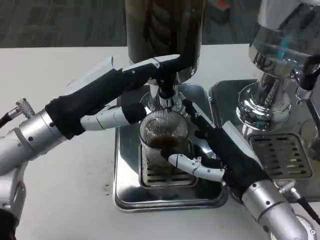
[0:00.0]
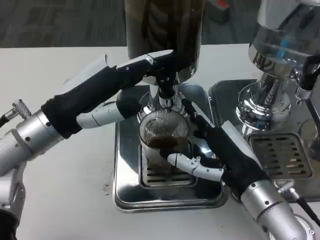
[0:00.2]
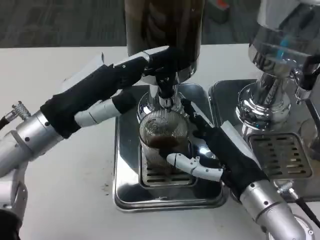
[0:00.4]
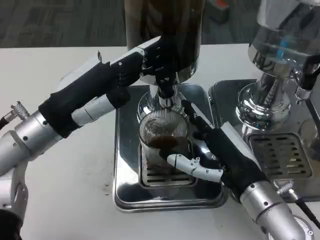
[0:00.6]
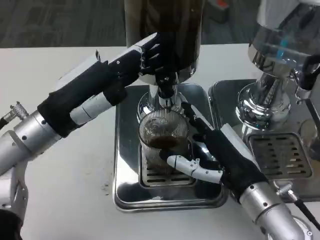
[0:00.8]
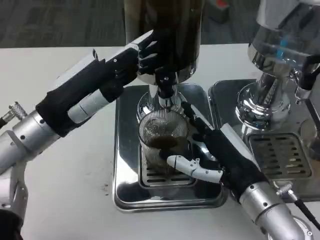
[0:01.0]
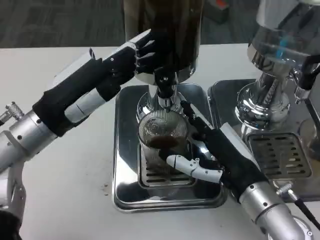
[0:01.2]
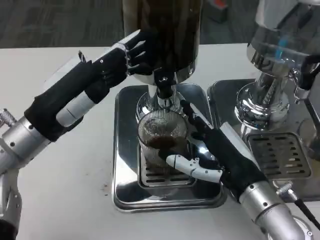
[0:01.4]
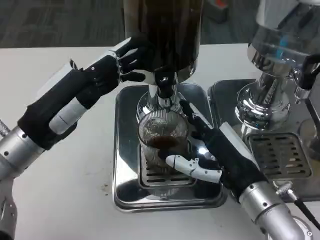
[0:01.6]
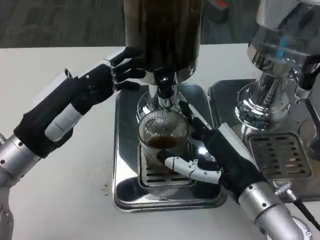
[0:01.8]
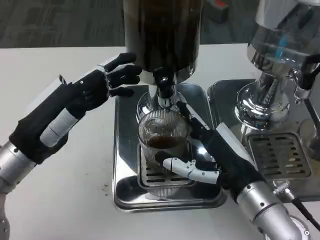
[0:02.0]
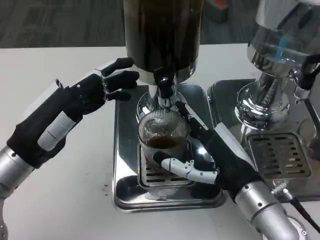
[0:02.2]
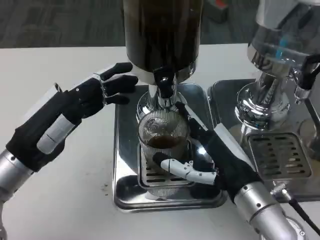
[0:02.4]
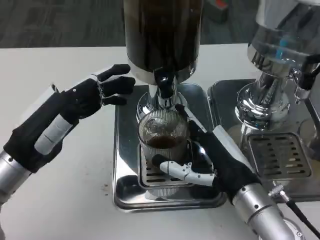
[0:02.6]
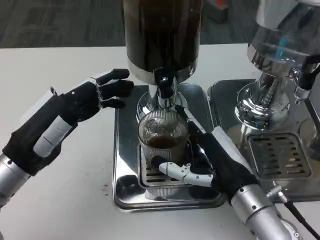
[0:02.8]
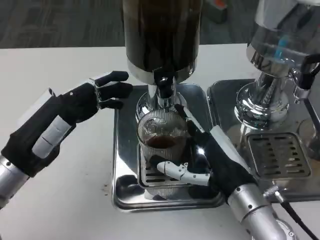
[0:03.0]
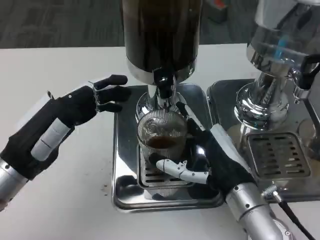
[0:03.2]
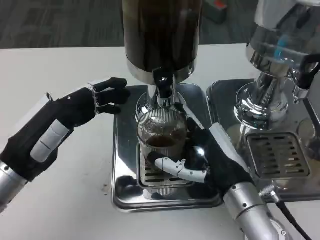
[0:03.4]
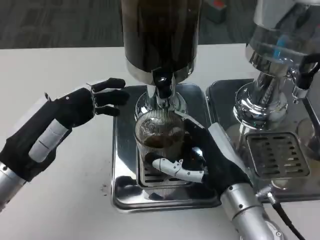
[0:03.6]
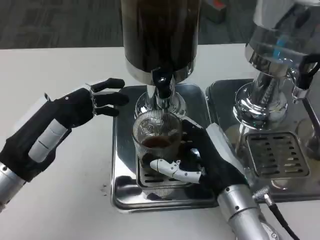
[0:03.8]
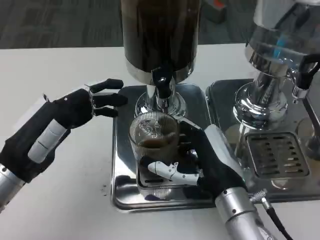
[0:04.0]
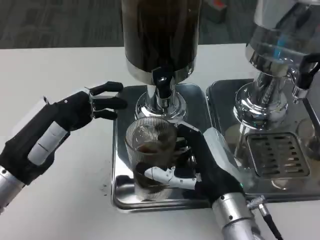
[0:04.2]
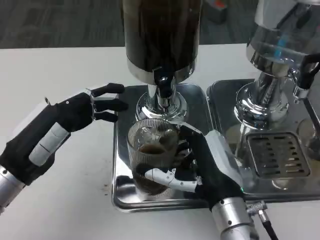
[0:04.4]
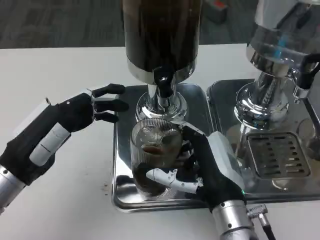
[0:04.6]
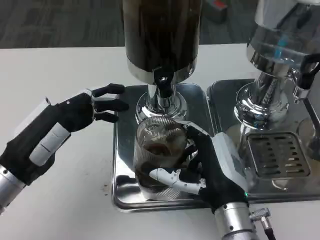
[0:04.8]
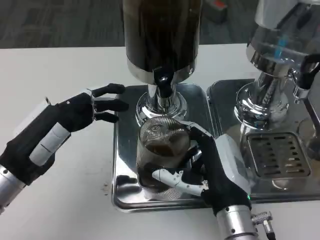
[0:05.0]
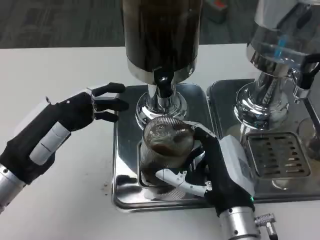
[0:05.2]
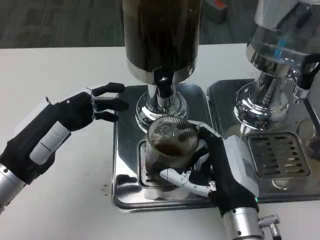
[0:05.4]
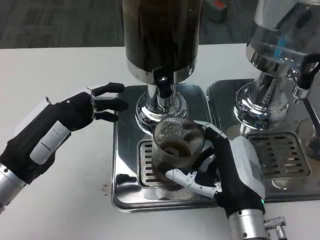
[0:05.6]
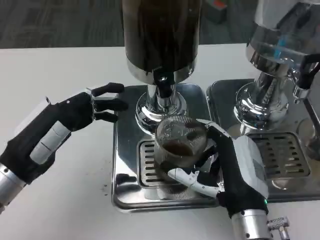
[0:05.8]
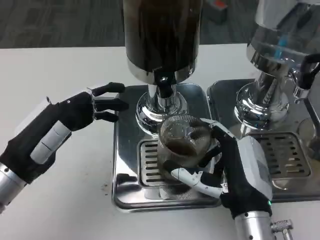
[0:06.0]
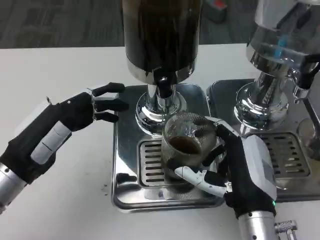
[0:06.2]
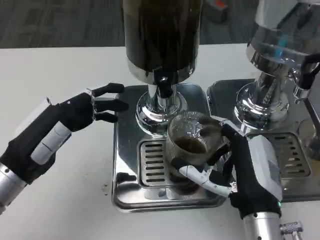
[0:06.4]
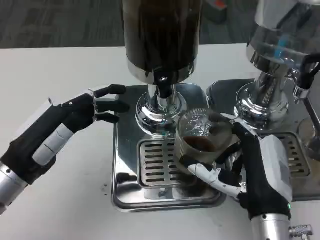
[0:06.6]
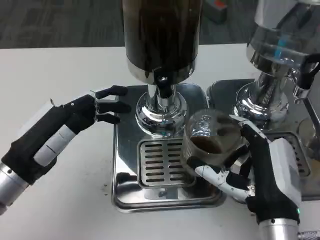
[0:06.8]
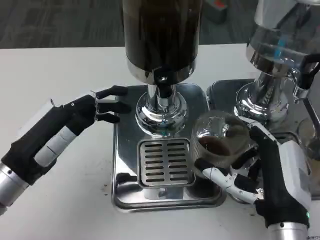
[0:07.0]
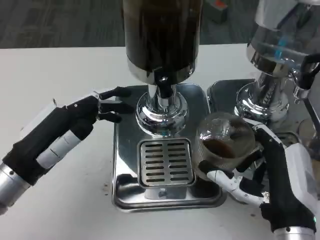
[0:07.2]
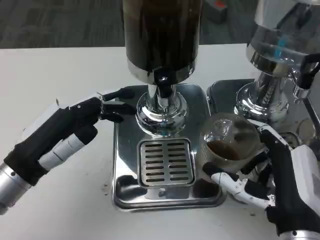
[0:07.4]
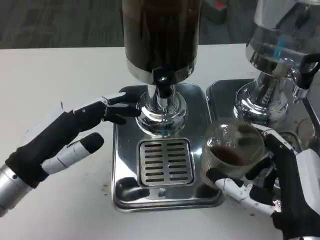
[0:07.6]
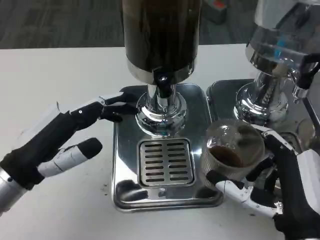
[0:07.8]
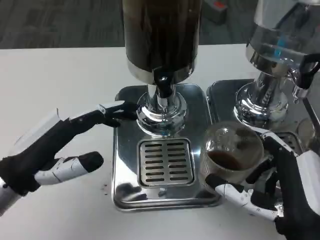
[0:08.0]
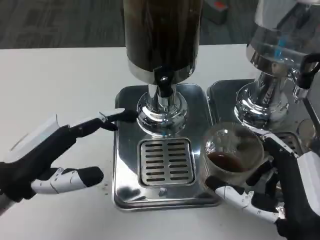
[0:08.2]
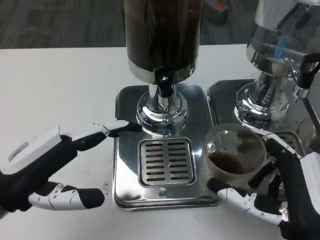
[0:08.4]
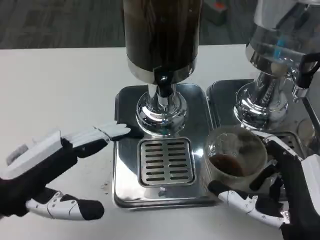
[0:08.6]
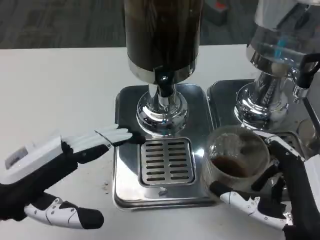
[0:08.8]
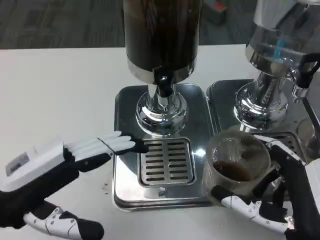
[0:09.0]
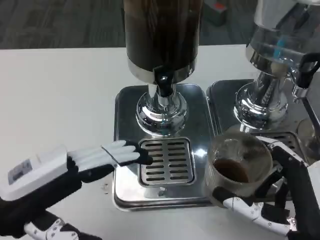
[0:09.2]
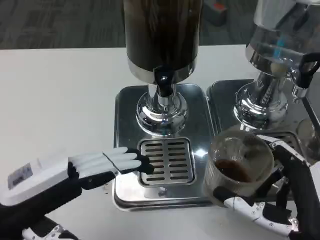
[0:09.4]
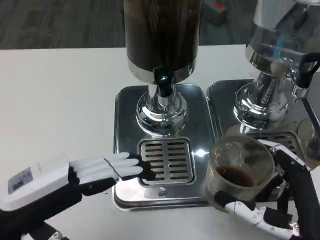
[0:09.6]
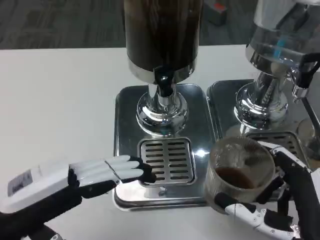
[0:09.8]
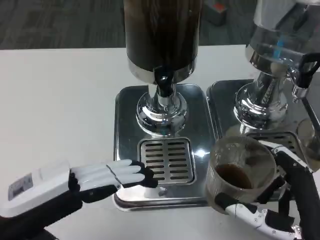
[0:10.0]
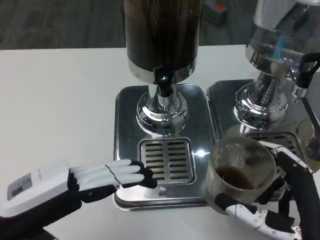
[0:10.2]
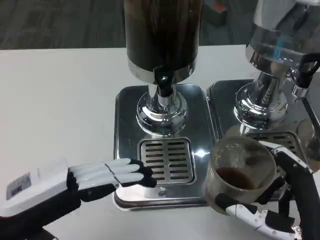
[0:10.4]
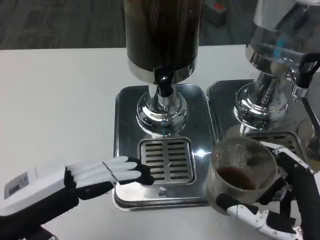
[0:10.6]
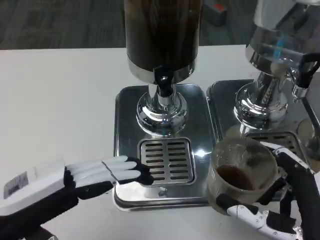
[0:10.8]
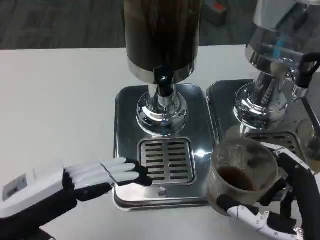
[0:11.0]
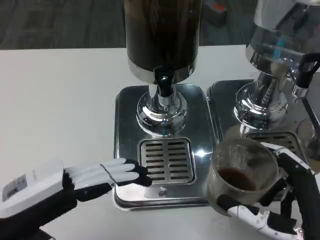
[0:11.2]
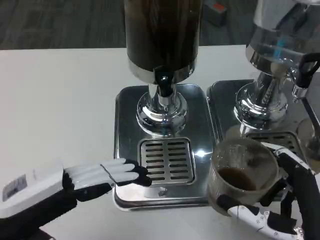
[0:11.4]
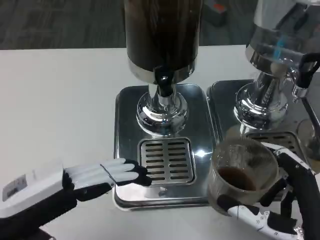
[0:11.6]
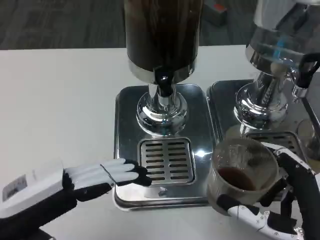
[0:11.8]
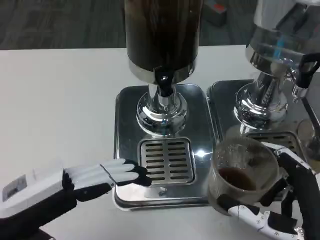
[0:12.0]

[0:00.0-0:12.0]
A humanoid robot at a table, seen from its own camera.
Task of the whole recording: Grasp the cup under the faucet to collect the drink, then remove the cup.
0:03.0 to 0:04.4: The hands move only a little.
0:04.4 to 0:06.0: The hands stay close to where they were, moving slightly.
0:06.0 to 0:07.6: The right hand ends up approximately 5 cm from where it was.
0:07.6 to 0:09.0: The left hand changes place by some 5 cm.
0:09.0 to 0:10.4: The hands move only a little.
0:10.4 to 0:12.0: The two hands keep their place.

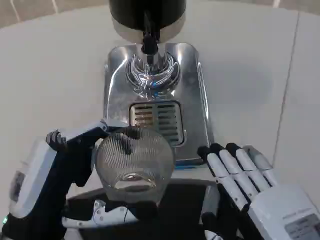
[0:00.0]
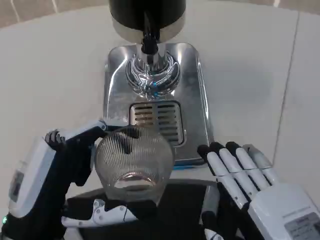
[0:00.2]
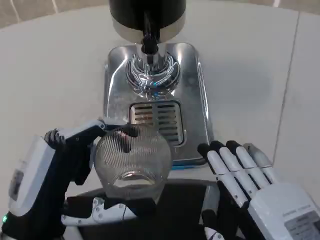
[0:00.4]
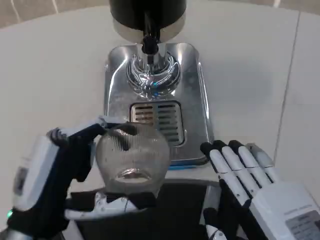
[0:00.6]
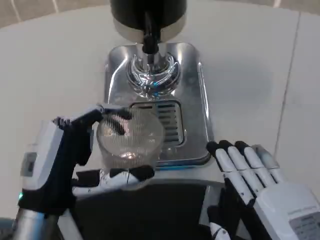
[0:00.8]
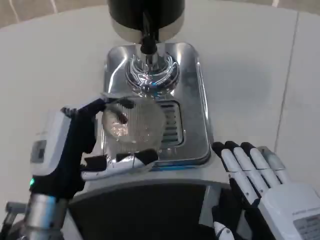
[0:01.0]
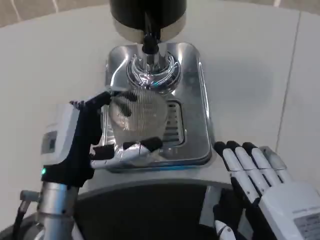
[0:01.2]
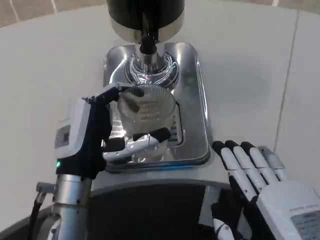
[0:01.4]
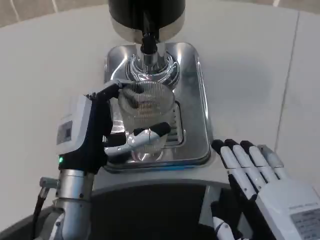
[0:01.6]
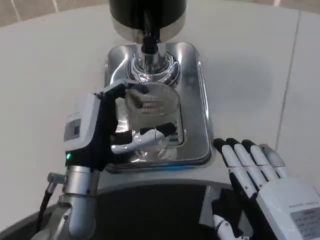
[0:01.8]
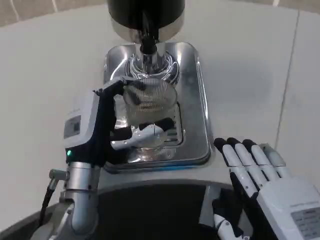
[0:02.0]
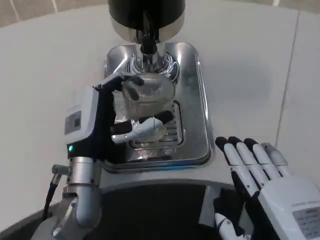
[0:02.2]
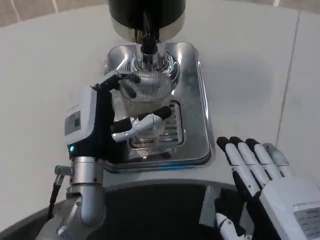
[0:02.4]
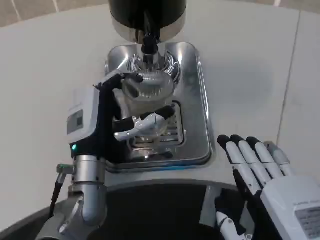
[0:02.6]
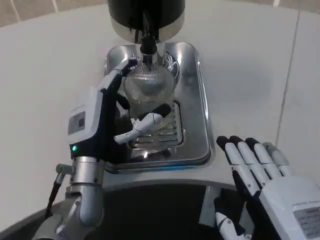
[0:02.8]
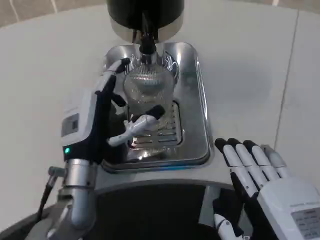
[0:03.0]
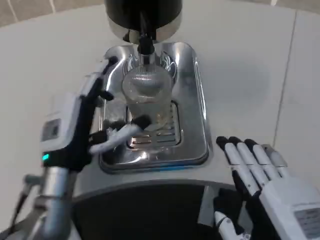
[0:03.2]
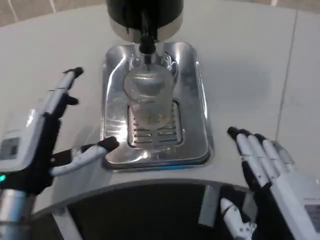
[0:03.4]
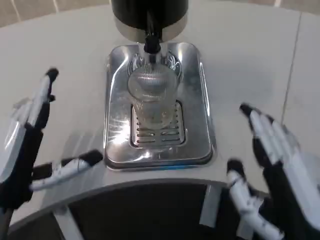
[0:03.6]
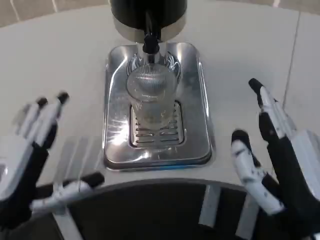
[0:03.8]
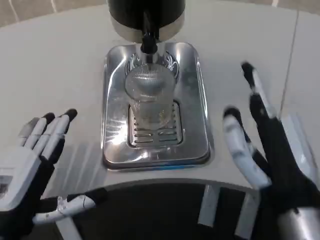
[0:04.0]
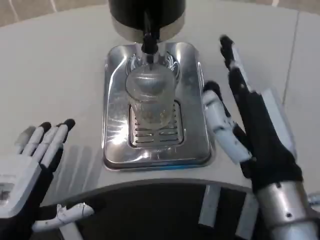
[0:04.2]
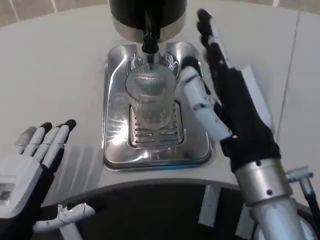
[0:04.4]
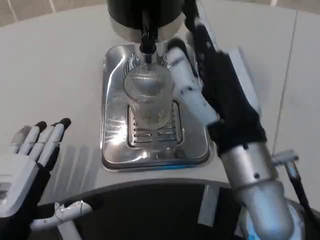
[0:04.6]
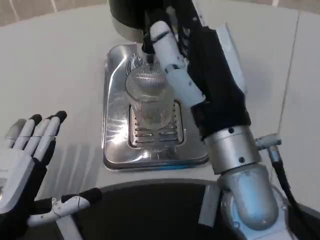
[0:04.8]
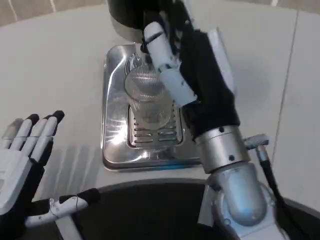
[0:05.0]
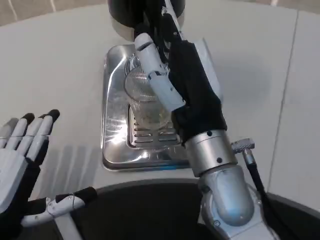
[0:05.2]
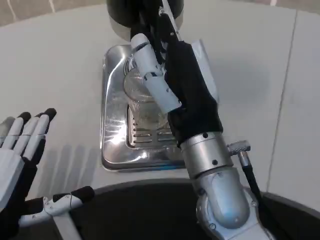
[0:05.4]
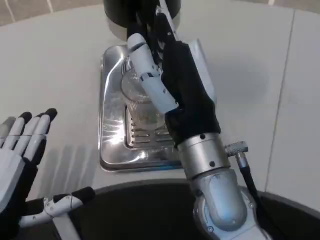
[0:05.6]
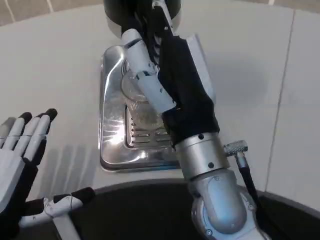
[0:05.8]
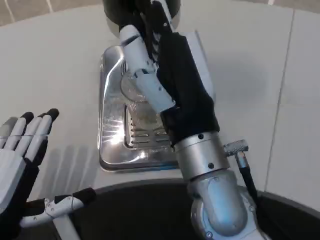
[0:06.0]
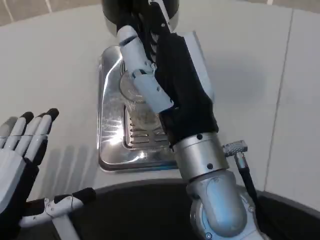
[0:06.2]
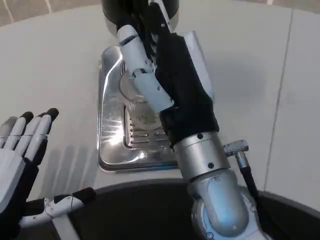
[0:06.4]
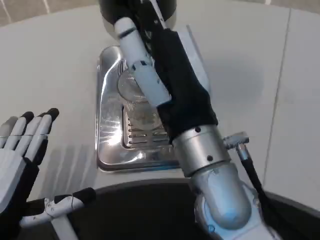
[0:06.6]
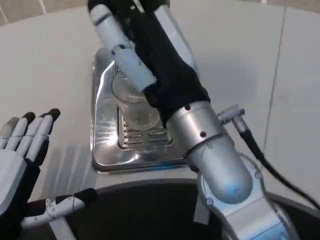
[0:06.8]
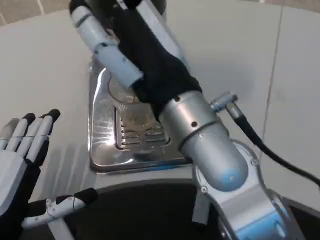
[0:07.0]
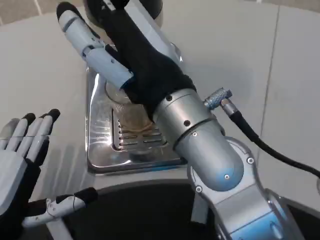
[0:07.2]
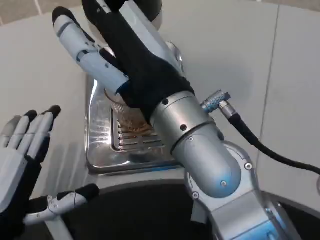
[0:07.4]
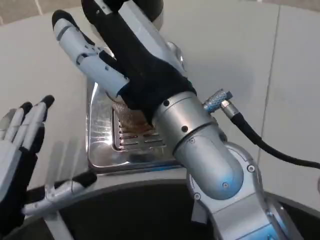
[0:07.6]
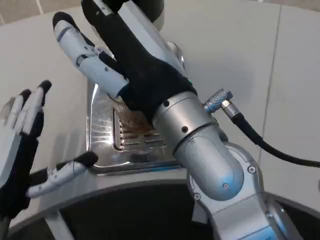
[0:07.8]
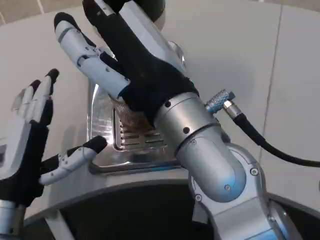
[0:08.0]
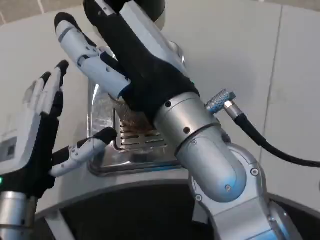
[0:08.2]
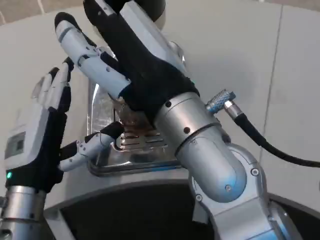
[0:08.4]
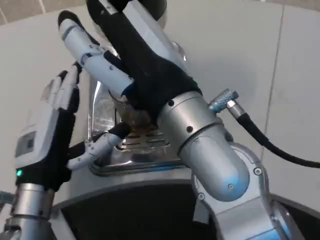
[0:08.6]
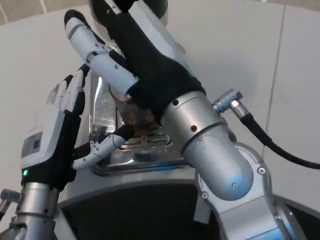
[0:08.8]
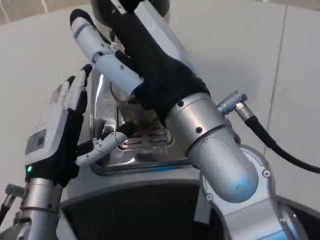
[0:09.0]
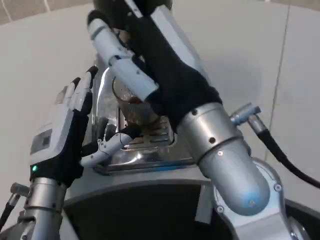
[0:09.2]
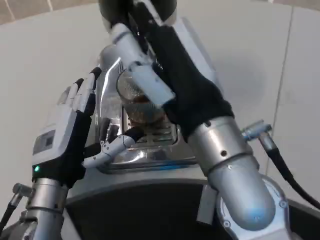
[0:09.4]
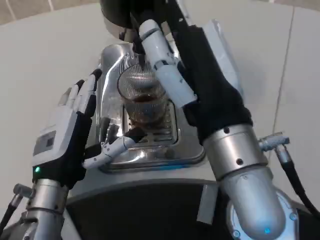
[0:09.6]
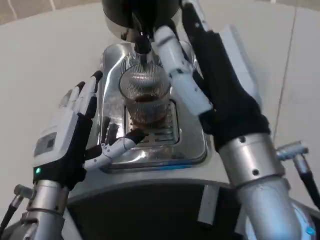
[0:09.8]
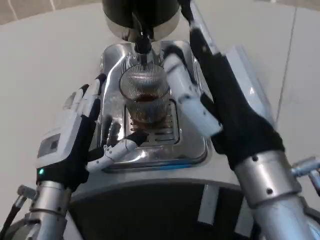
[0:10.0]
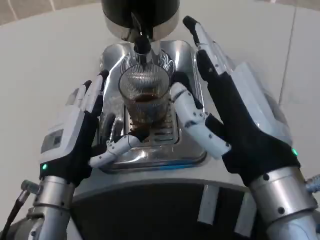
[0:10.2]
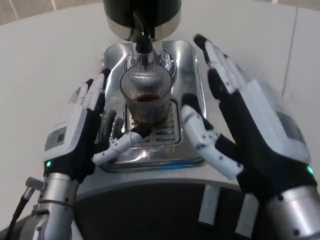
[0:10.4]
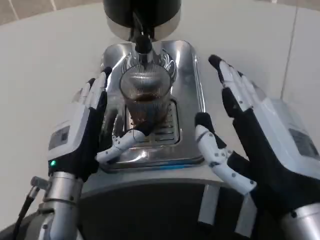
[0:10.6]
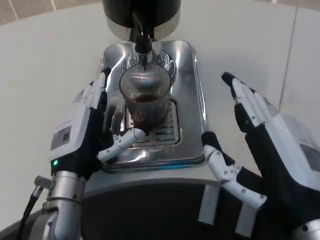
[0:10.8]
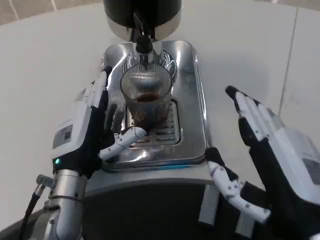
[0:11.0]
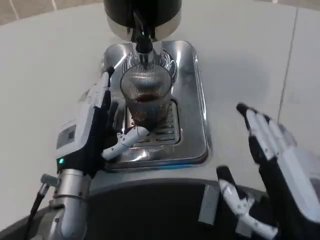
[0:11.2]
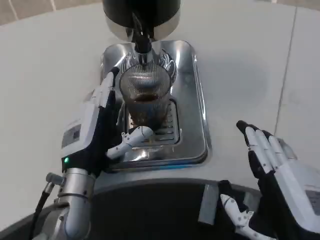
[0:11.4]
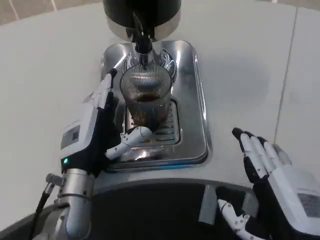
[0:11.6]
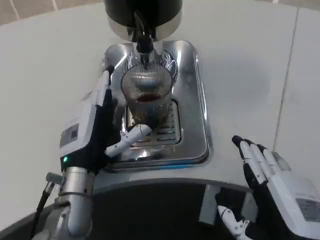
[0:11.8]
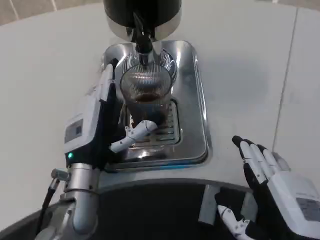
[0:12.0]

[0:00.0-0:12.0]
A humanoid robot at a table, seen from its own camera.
Task of the whole recording: Grasp the cup under the faucet to collect the drink, then remove the cup.
0:00.0 to 0:01.6: The left hand heads forward, covering approximately 10 cm.
0:01.6 to 0:03.0: The hands move only a little.
0:03.0 to 0:04.4: The right hand shifts about 15 cm forward, to the left and upward, while the left hand travels backward and to the left by approximately 15 cm.
0:04.4 to 0:06.0: The right hand heads to the left, covering approximately 5 cm.
0:06.0 to 0:07.6: The right hand is displaced upward by about 5 cm.
0:07.6 to 0:09.0: The left hand shifts approximately 10 cm forward and to the right.
0:09.0 to 0:10.4: The right hand is displaced to the right and downward by approximately 10 cm.
0:10.4 to 0:12.0: The right hand moves downward, roughly 10 cm.
